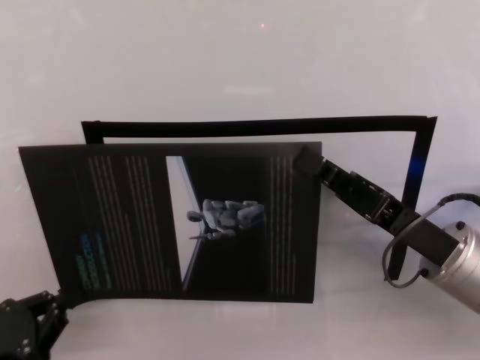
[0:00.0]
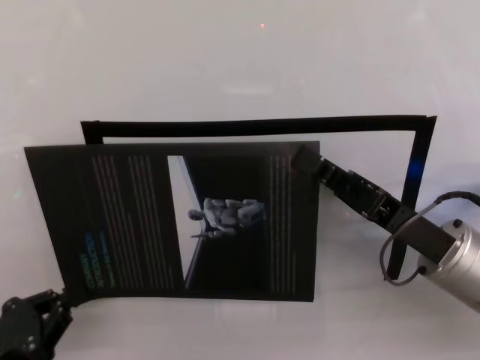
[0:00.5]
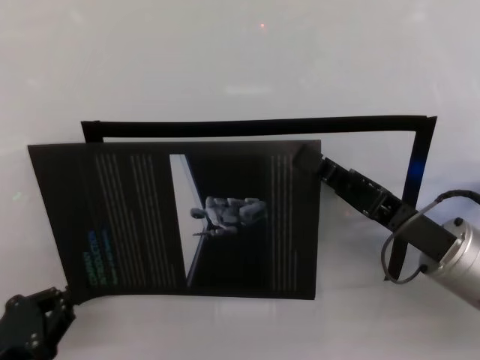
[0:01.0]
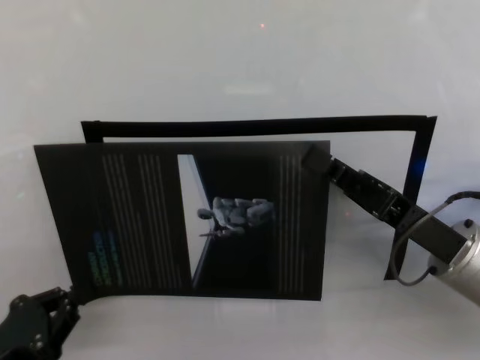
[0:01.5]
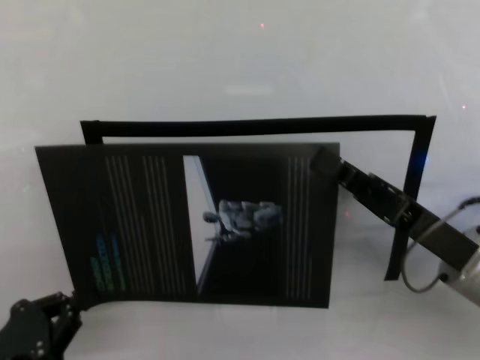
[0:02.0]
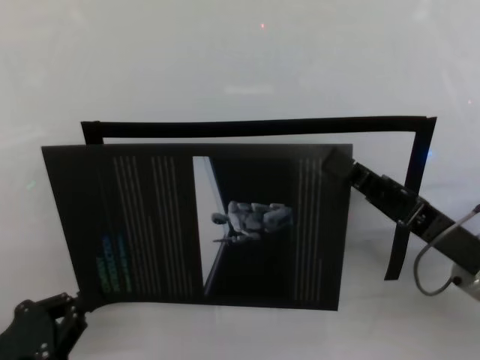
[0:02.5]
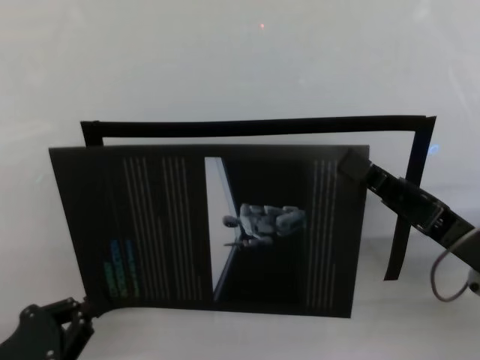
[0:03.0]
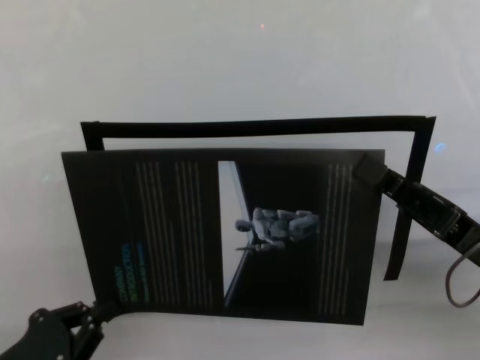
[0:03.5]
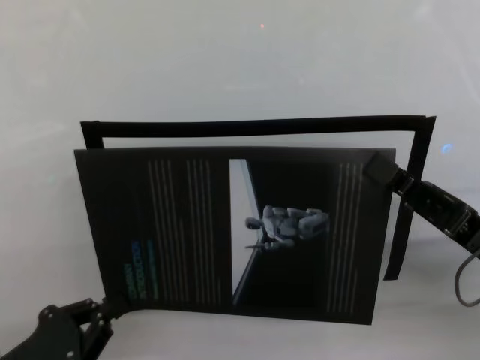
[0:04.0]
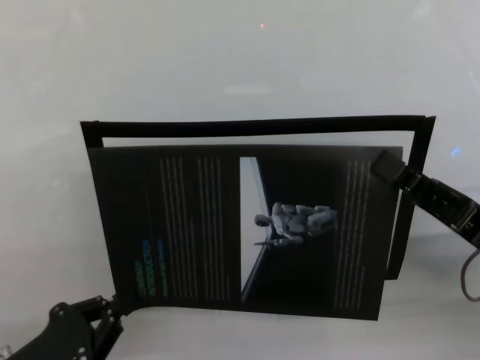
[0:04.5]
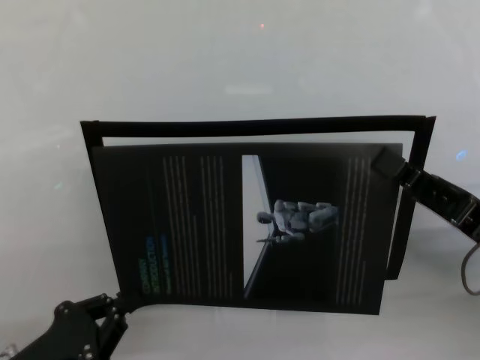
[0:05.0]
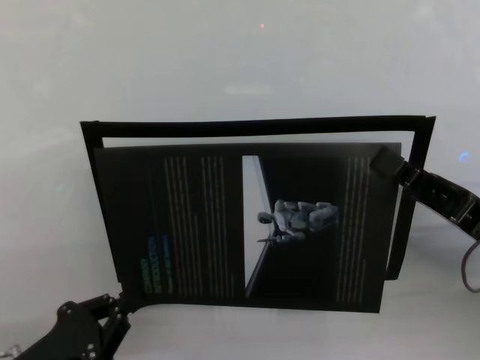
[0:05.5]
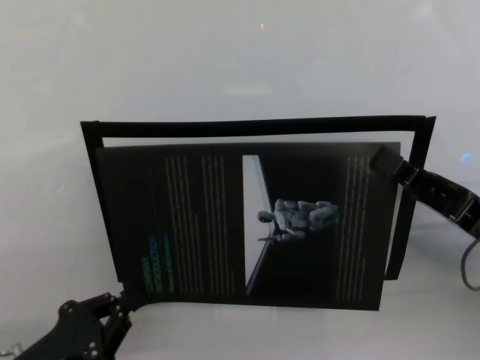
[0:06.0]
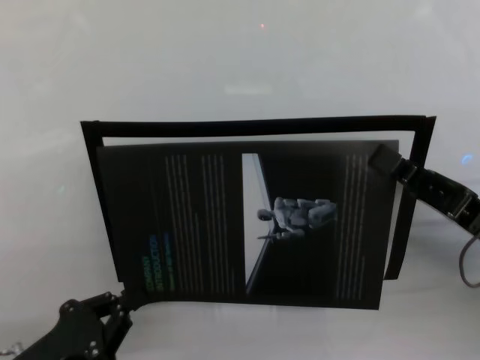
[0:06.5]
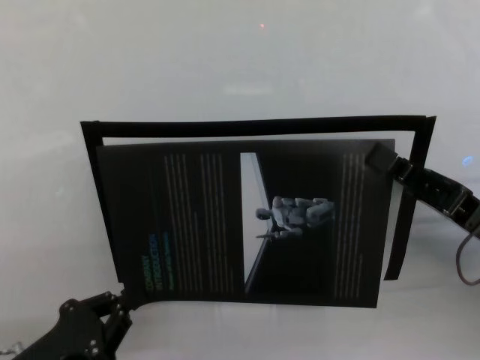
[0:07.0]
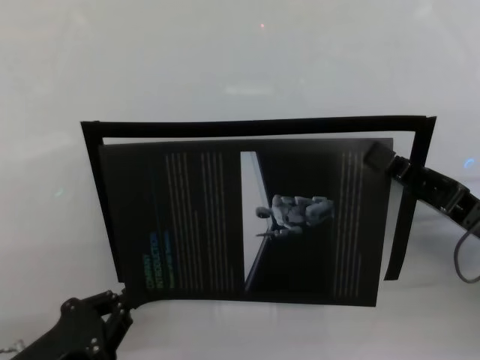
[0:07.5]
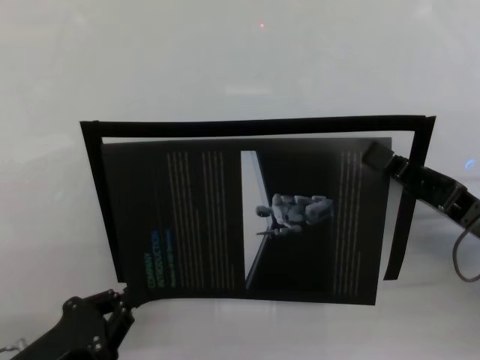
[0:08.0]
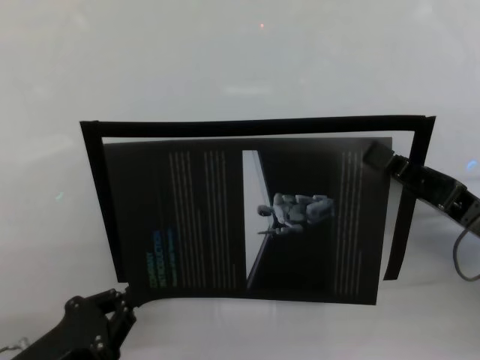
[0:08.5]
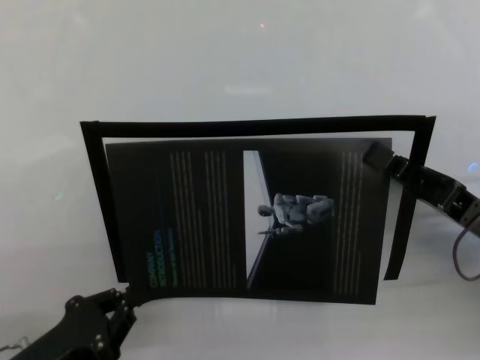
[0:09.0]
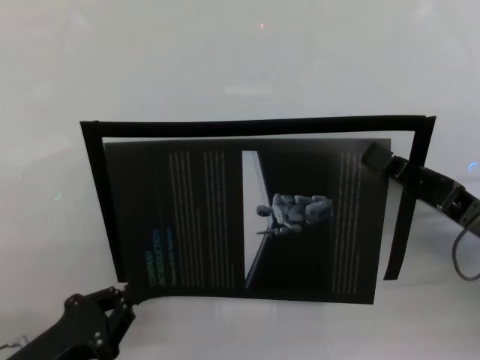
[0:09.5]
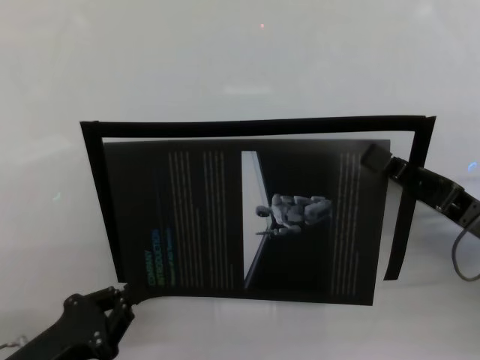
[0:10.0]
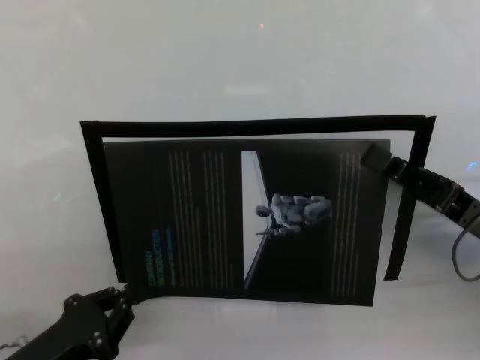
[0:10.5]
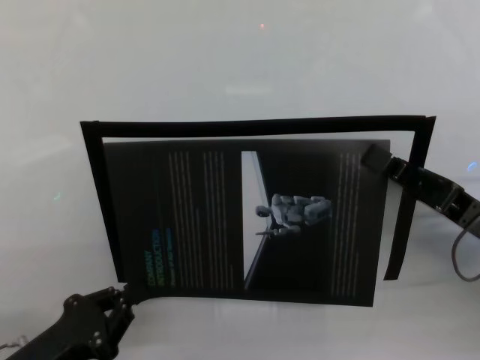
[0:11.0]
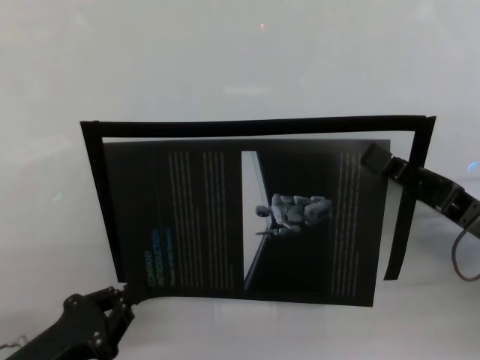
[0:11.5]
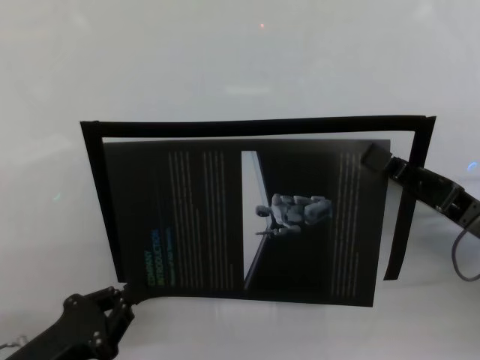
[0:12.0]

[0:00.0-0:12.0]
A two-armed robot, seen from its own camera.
Task of the whole recording: stick the poster on the table by hand.
Step, 0:00.0 to 0:08.0: Stick the advertisement in the top-right corner area with both grippers.
